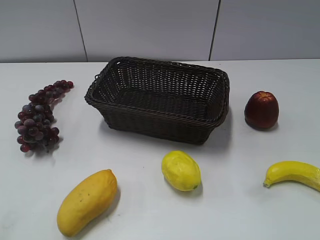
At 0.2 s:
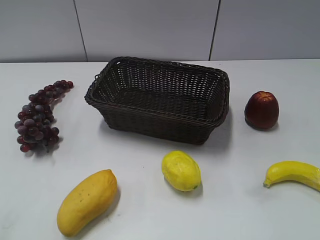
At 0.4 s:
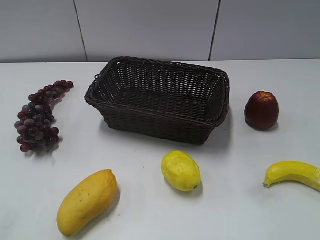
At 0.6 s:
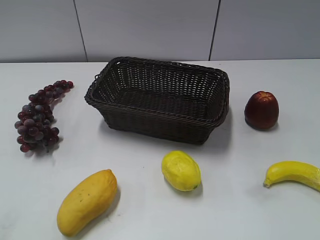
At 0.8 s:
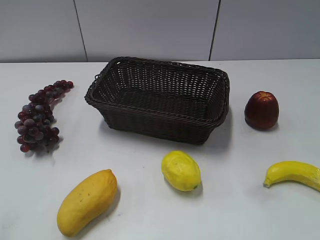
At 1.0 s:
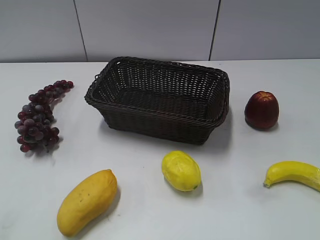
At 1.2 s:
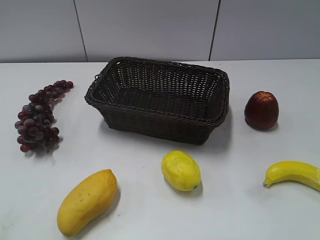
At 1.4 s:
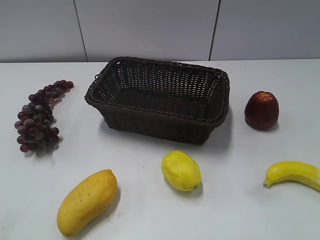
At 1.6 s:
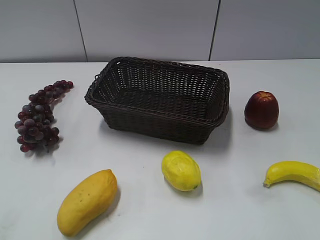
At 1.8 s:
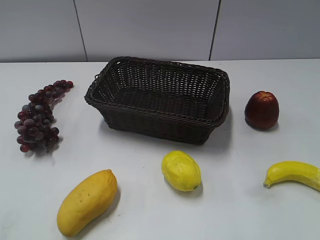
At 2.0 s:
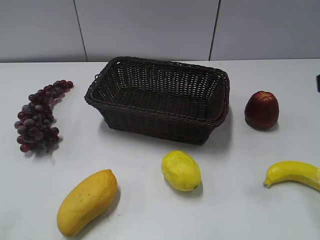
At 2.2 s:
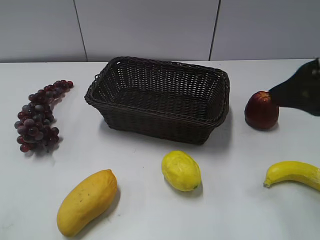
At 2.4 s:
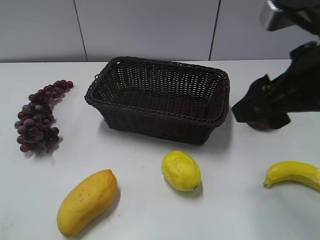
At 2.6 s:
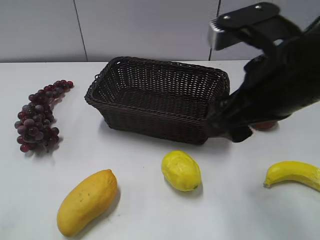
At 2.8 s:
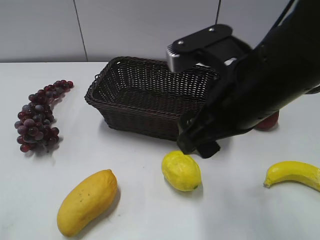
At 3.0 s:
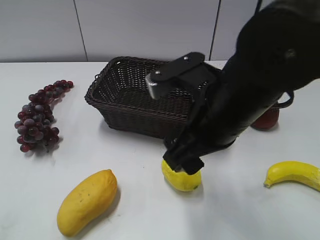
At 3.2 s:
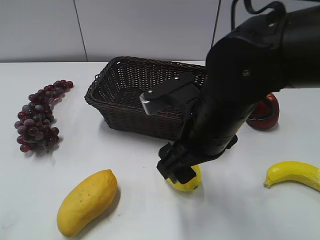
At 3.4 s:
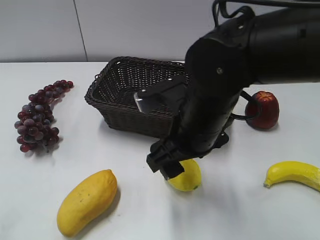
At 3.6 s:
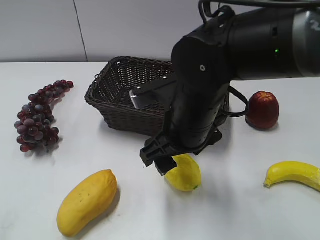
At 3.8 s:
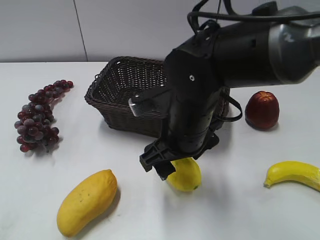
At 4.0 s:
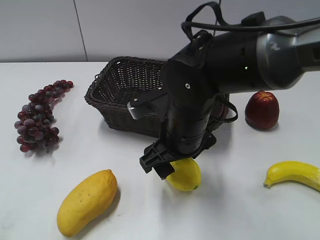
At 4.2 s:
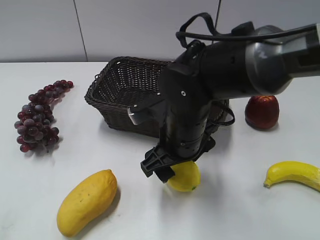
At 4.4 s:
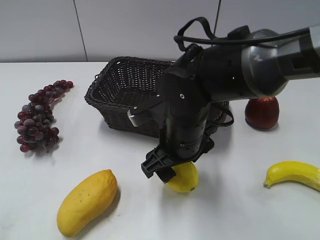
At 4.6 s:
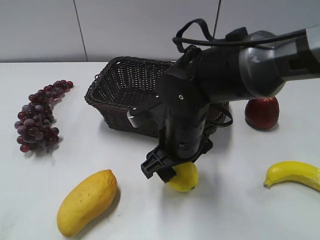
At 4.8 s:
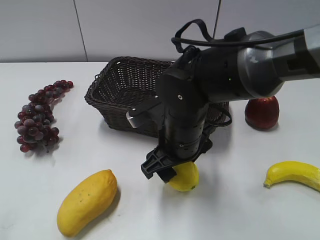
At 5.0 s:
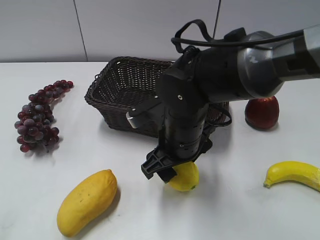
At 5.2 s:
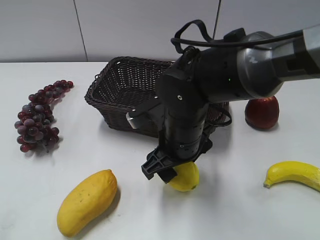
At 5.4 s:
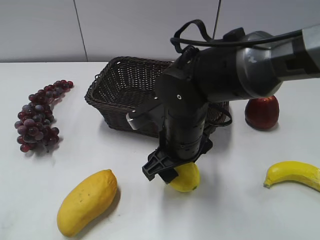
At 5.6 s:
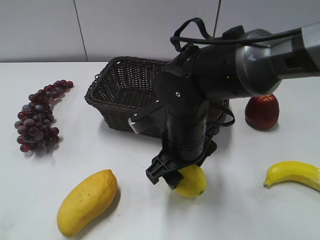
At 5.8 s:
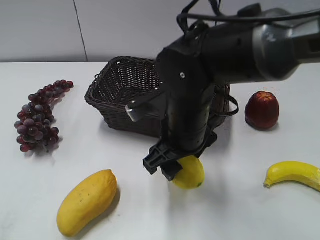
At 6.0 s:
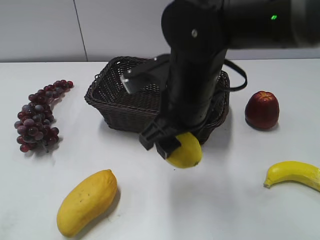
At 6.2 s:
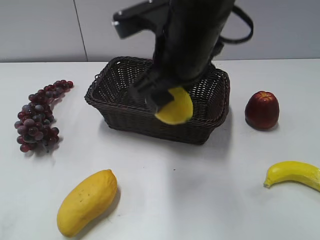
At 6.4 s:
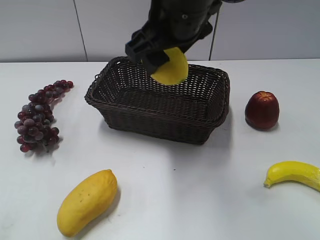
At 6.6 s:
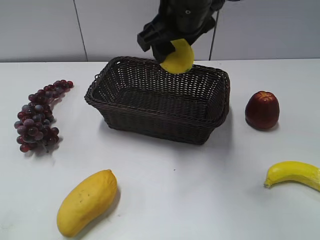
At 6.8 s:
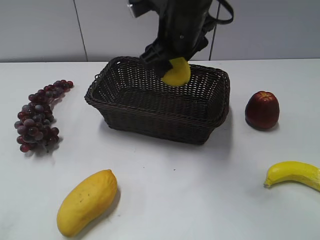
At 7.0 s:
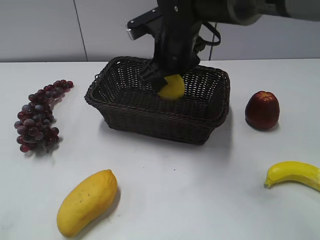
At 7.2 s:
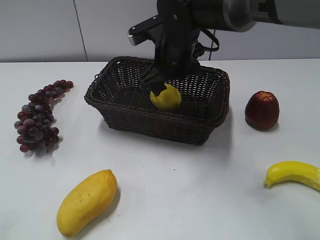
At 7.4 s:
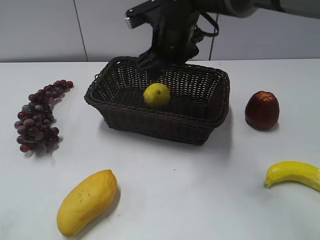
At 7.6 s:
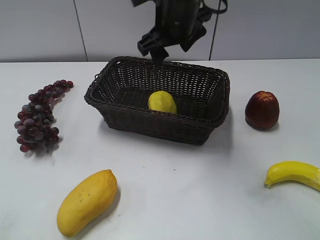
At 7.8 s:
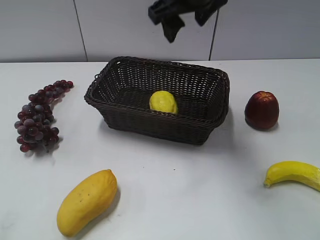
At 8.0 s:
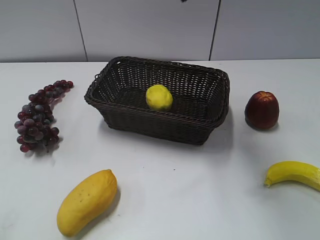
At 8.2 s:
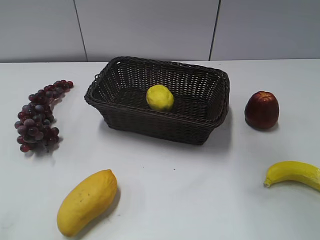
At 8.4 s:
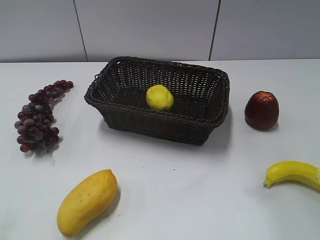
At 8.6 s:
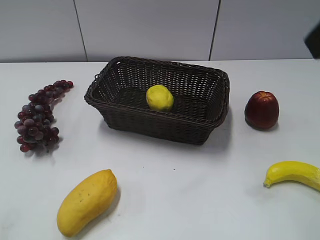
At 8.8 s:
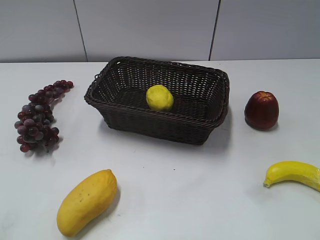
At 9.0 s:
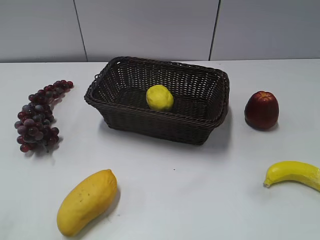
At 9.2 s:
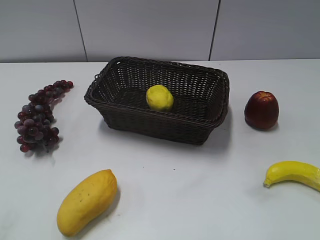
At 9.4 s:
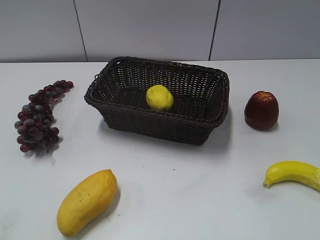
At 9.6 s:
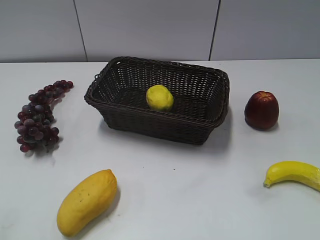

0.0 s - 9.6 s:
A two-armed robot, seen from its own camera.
Step, 2.0 s - 5.6 s: Grasp the lemon with right gripper.
Step, 5.8 s - 7.4 s: Place the lemon in the basket with right gripper.
1.6 s - 3.2 s: The left gripper closes its fingers; the right gripper moves to the left, downward and forward, about 30 cm.
3.2 s - 4.8 s: The right gripper is displaced downward by roughly 5 cm, and closes its fingers.
4.8 s - 6.4 s: The right gripper goes roughly 20 cm upward.
6.4 s - 8.0 s: The right gripper goes approximately 10 cm upward.
8.0 s - 9.6 s: The right gripper heads backward, to the right and downward, covering some 35 cm.

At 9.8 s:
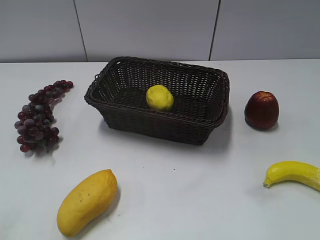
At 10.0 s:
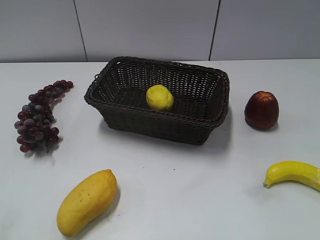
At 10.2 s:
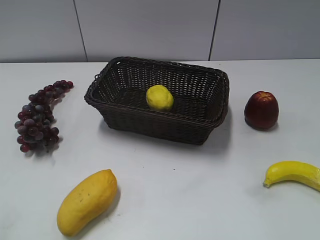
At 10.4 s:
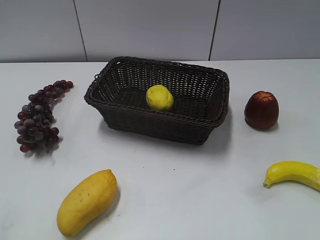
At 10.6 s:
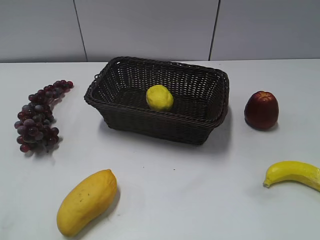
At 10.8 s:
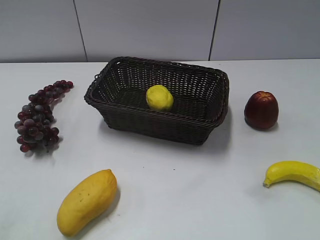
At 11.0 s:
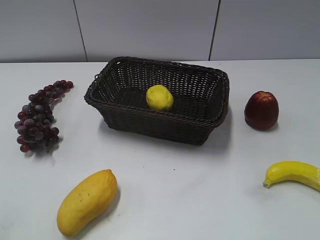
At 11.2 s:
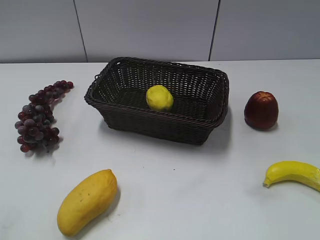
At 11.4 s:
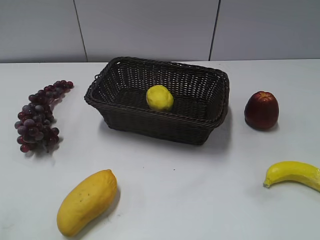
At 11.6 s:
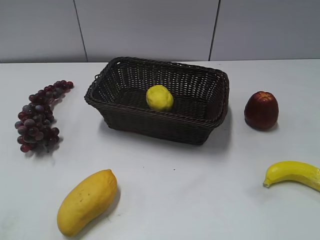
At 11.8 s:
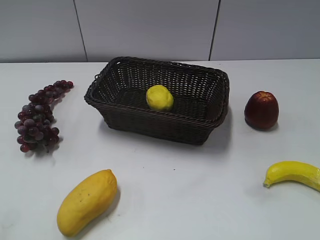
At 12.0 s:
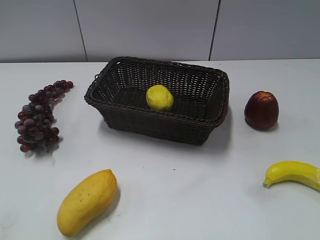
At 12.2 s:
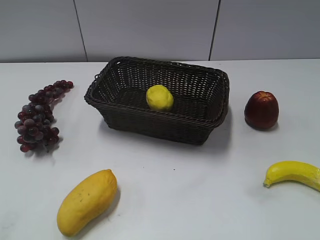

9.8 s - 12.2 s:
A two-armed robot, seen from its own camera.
11.0 s - 12.2 s: Both grippers stay about where they are.

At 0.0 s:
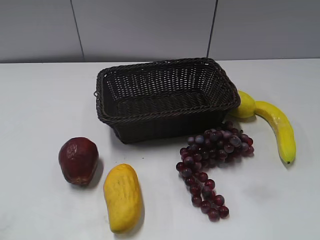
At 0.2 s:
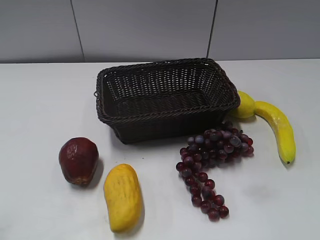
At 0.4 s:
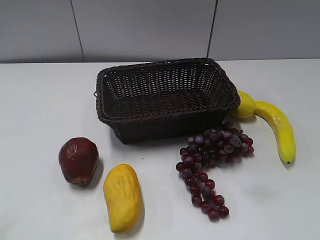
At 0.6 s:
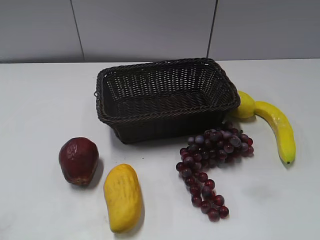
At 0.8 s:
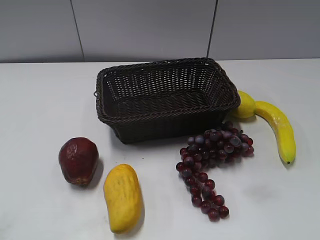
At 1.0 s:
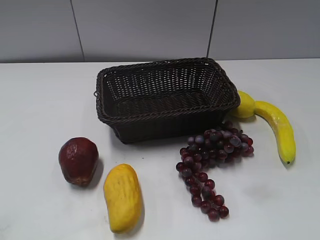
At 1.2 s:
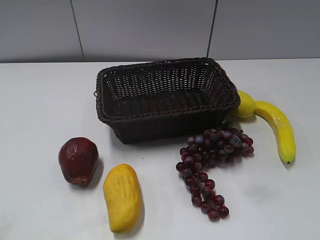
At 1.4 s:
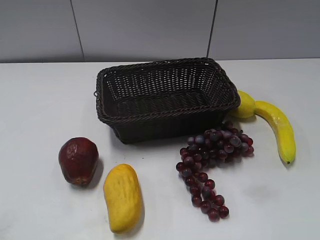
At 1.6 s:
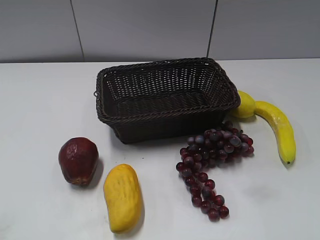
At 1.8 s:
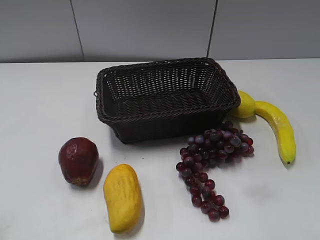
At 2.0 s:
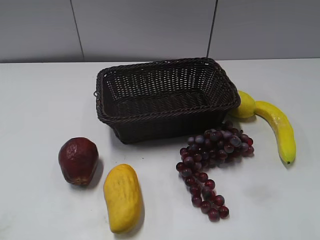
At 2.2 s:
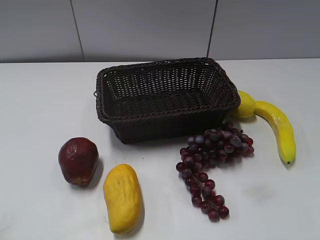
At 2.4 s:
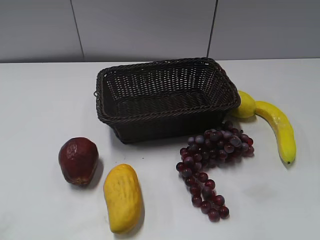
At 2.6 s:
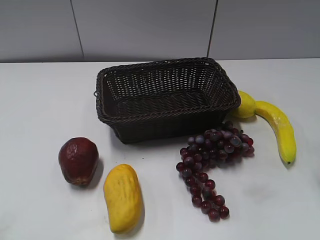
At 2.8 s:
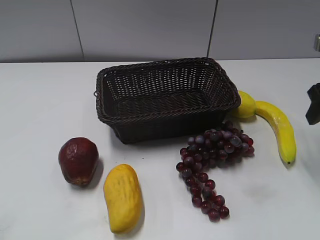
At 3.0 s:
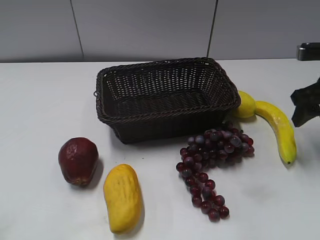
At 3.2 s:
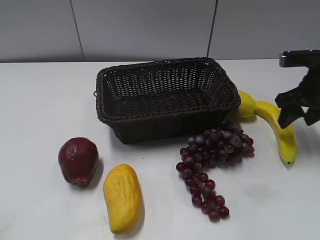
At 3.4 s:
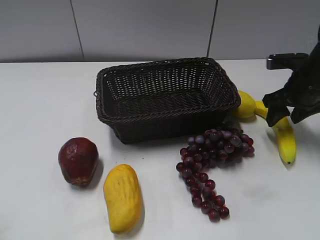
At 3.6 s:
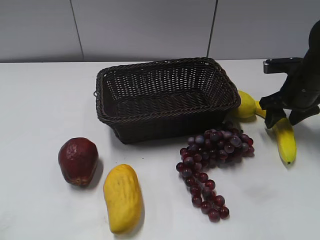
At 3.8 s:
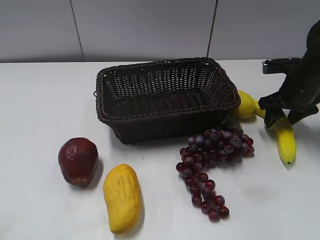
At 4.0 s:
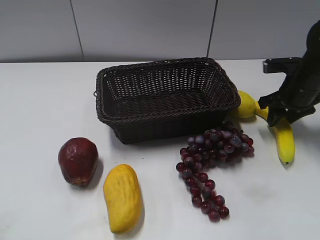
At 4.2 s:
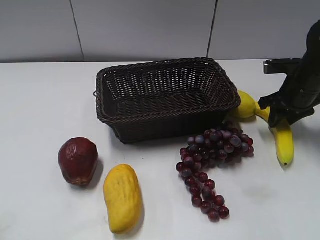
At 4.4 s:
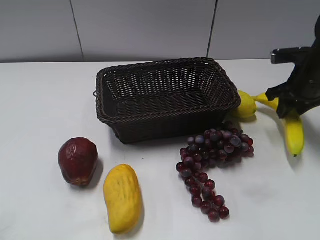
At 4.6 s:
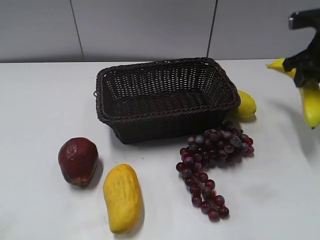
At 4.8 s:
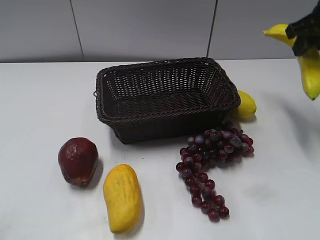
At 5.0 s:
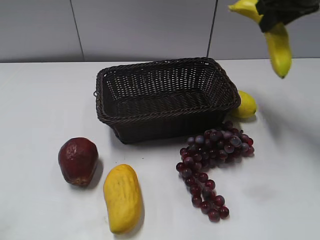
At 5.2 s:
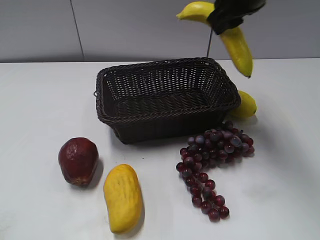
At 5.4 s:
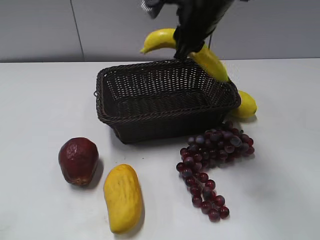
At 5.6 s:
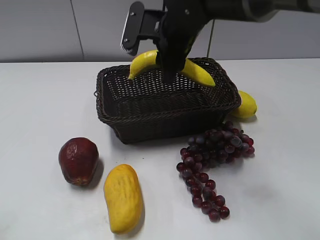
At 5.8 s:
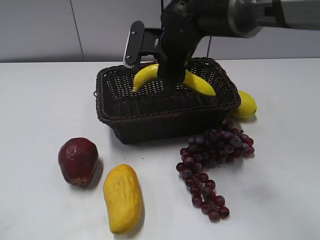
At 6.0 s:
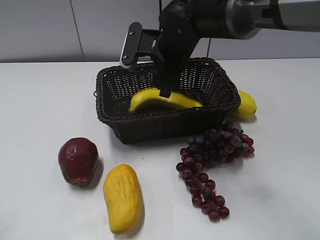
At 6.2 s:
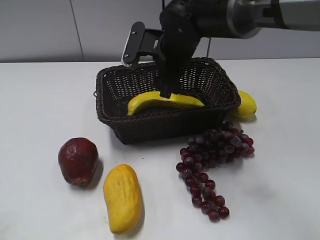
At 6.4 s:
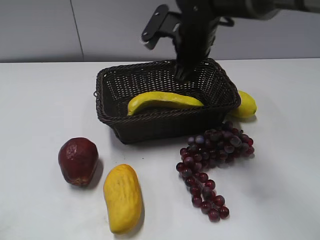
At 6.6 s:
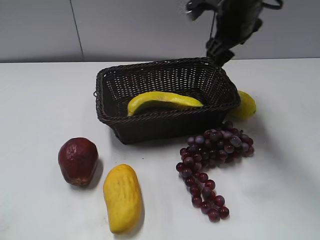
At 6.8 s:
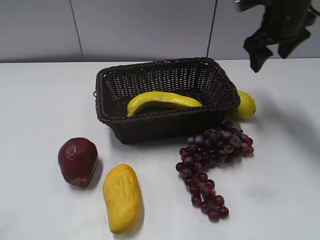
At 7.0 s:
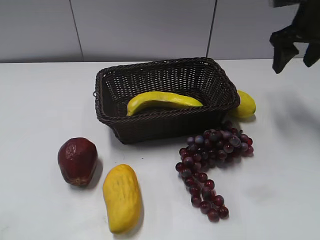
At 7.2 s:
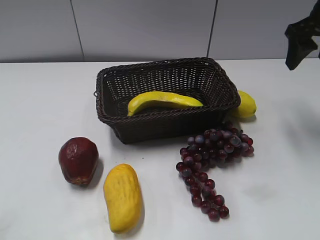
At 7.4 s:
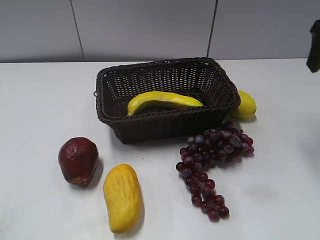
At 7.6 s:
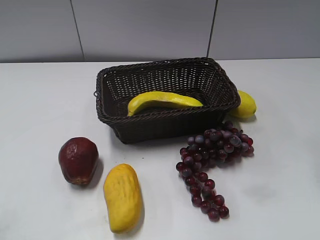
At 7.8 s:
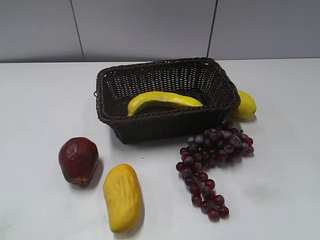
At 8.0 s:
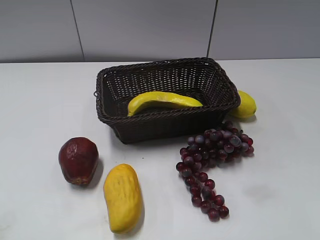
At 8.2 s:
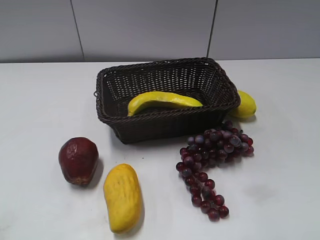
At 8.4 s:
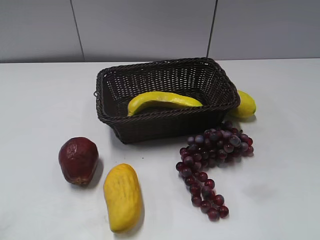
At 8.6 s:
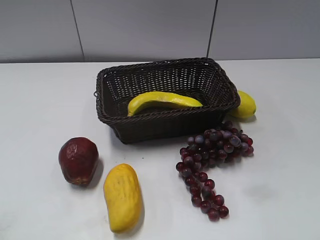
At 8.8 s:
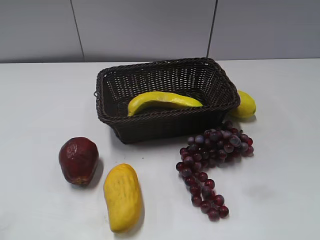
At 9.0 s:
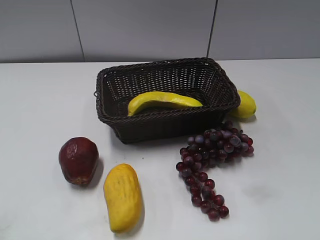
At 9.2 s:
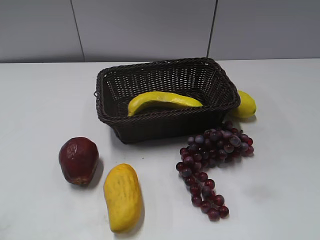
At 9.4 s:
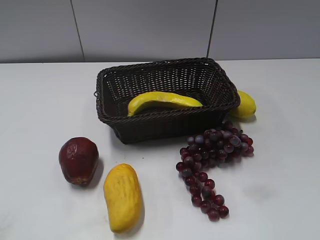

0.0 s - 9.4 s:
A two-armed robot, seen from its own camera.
Step, 2.6 s - 4.2 s: Grasp the banana with right gripper.
Step, 4.4 s - 6.4 s: Place the banana in the basket with right gripper.
1.6 s - 3.2 s: The right gripper shifts about 25 cm forward.
3.2 s - 4.8 s: The right gripper goes roughly 10 cm upward, and closes.
4.8 s - 6.2 s: The right gripper shifts some 25 cm to the left, and opens its fingers.
6.2 s - 7.8 s: The right gripper shifts about 35 cm to the right, backward and upward.
